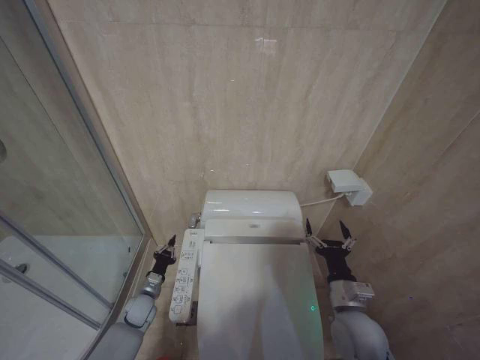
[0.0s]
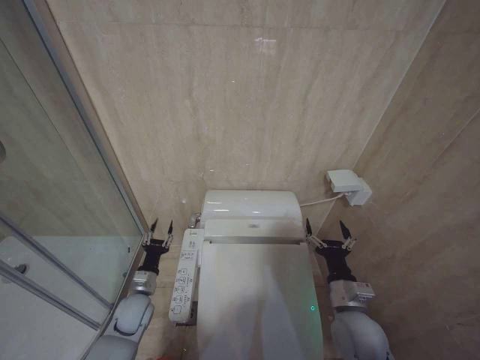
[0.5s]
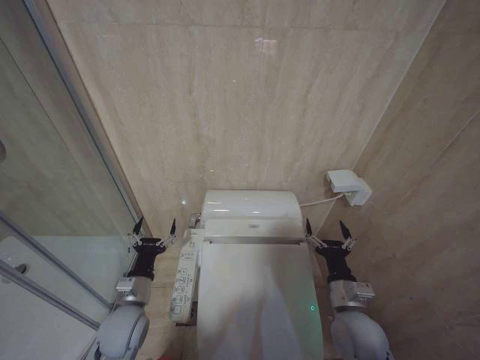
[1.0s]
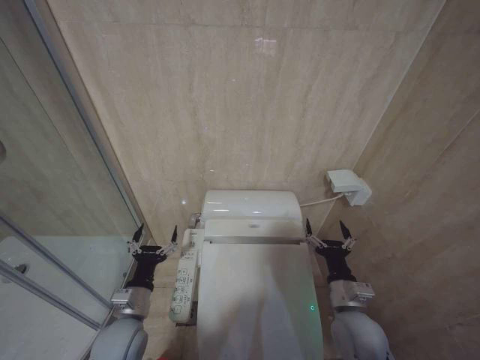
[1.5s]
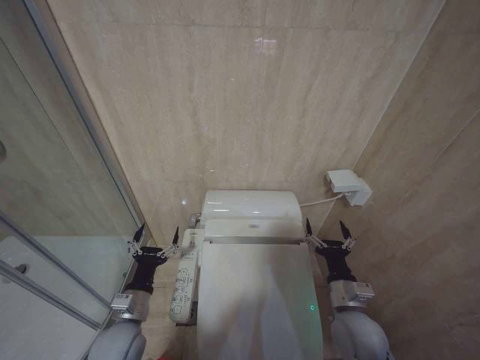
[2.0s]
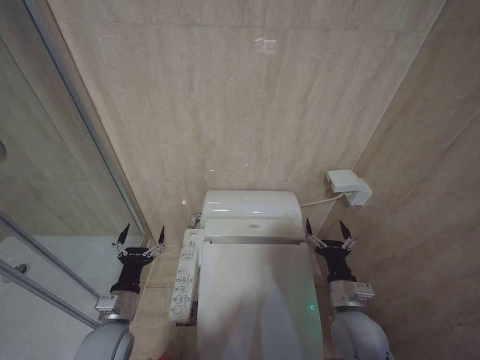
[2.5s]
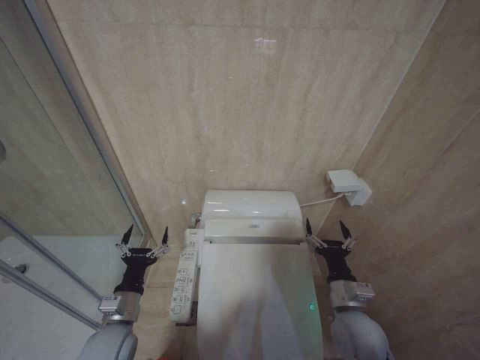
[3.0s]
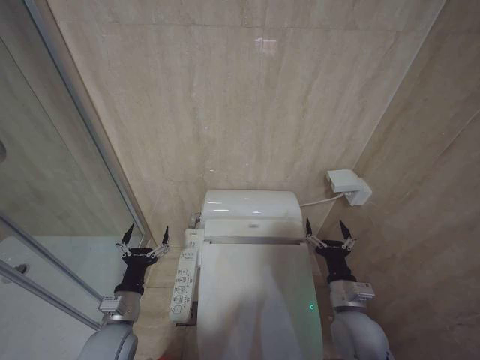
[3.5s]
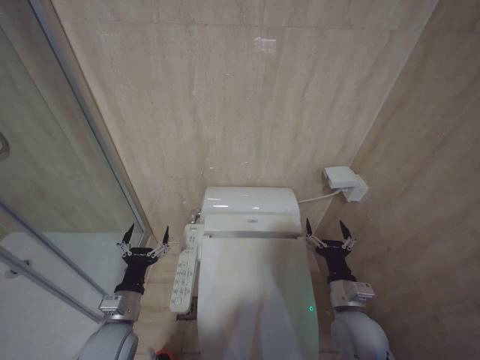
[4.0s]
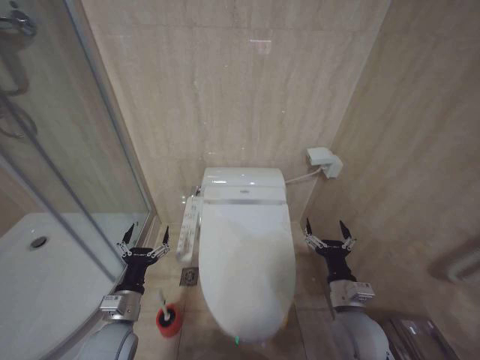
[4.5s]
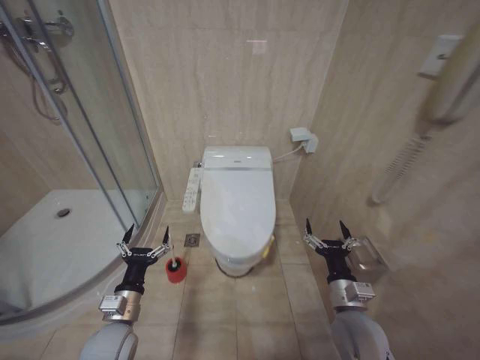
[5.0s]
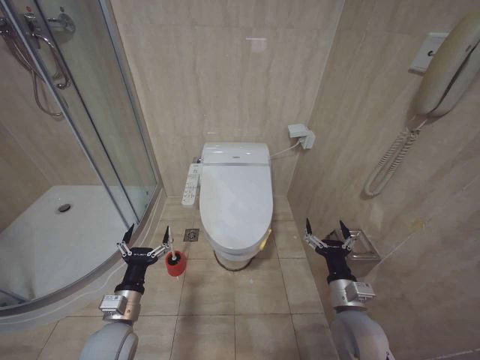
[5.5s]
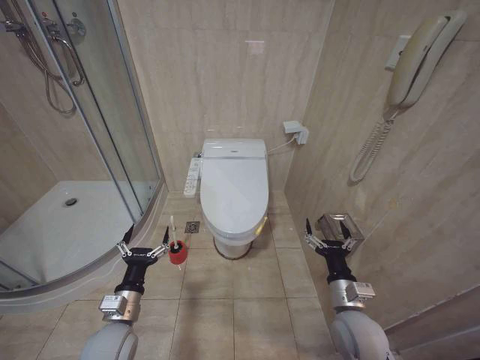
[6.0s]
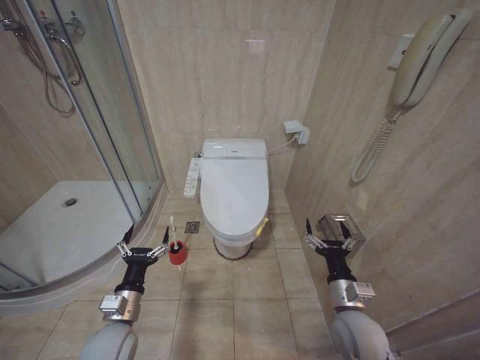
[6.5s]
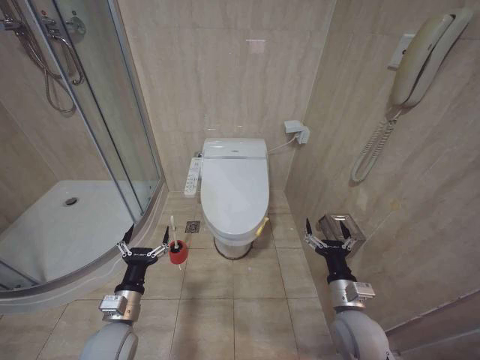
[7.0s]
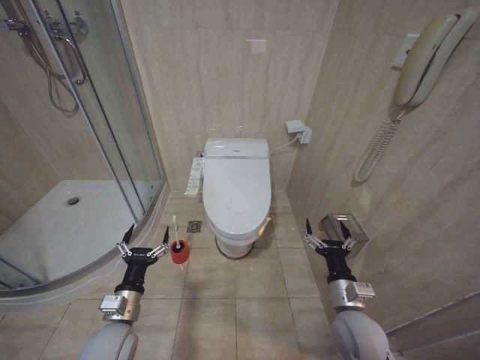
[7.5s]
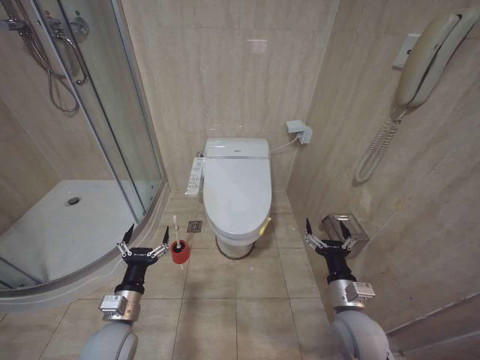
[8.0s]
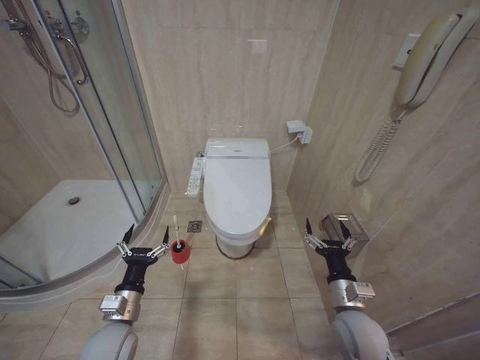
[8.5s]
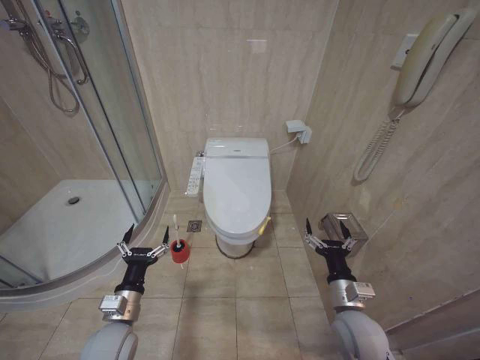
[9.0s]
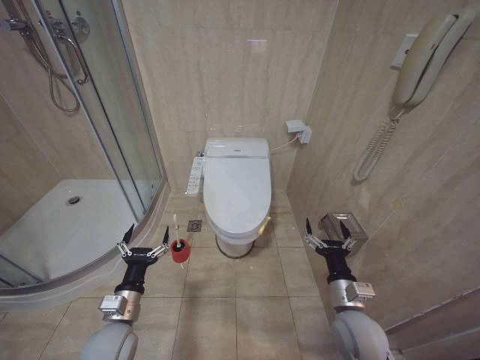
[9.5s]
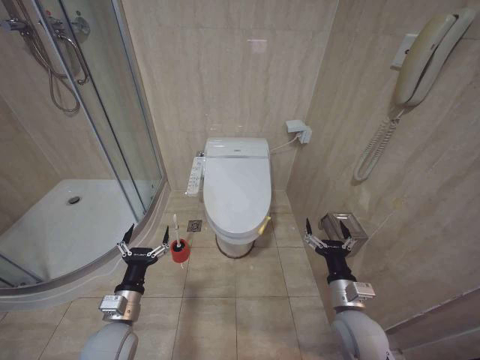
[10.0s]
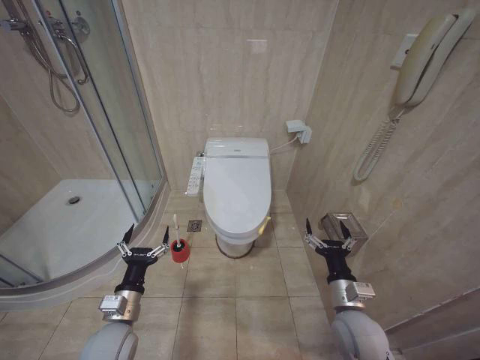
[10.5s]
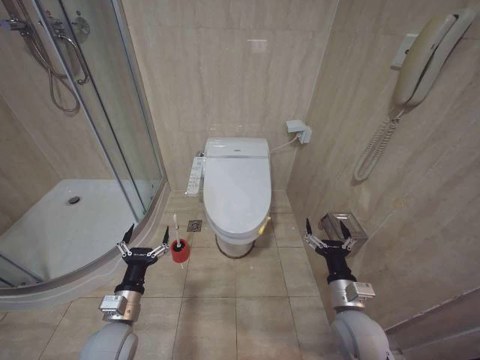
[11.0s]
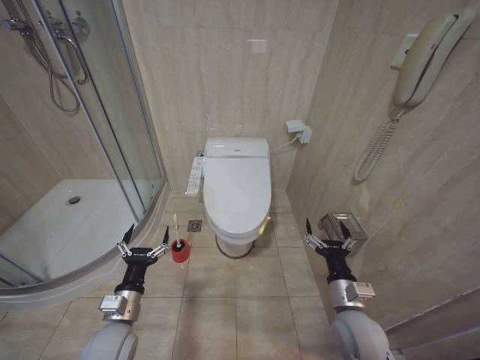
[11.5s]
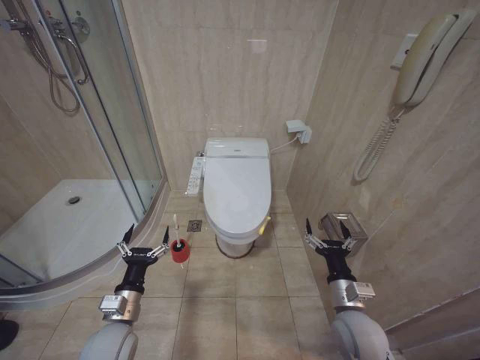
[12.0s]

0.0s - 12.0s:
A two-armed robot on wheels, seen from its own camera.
Task of the whole recording: Open the toilet lid, clean the toilet bowl with a toilet brush, close the toilet lid, and flush.
0.0s - 2.0s: The left gripper heads upward and backward, covering some 25 cm, and opens.
2.0s - 4.0s: There are only small adjustments of the grippers.
6.0s - 12.0s: Both grippers stay put.
